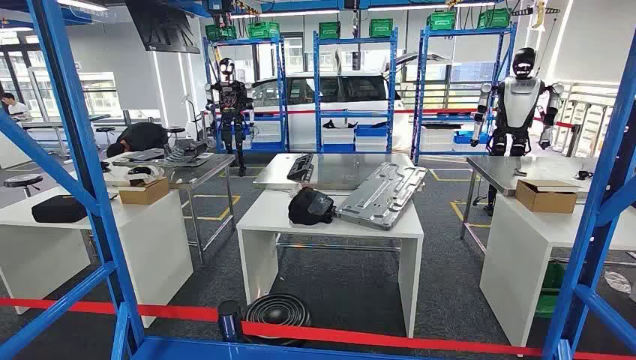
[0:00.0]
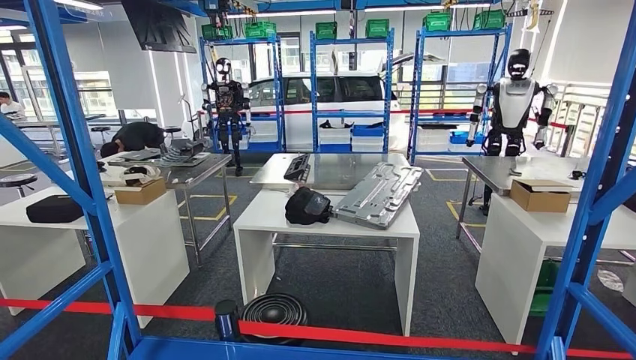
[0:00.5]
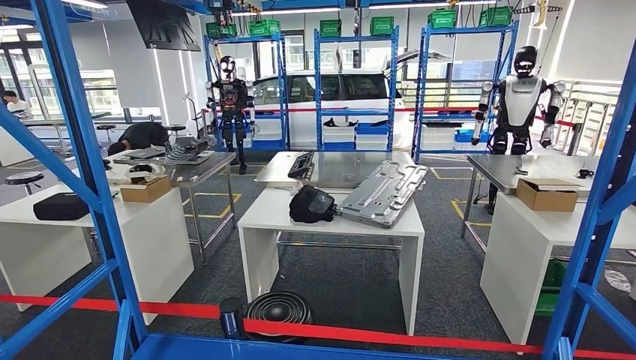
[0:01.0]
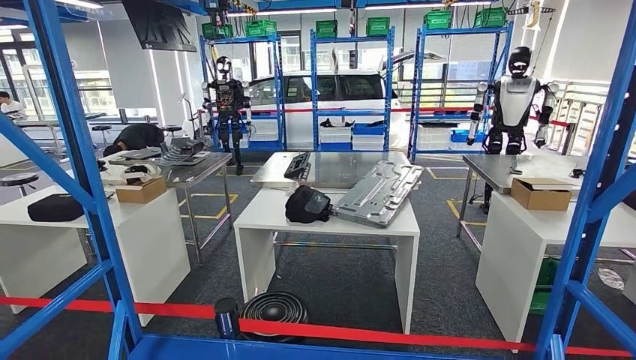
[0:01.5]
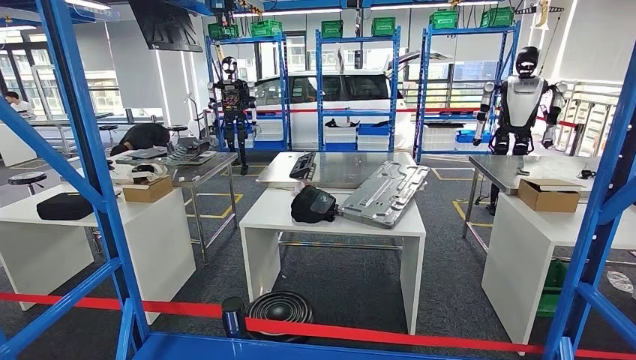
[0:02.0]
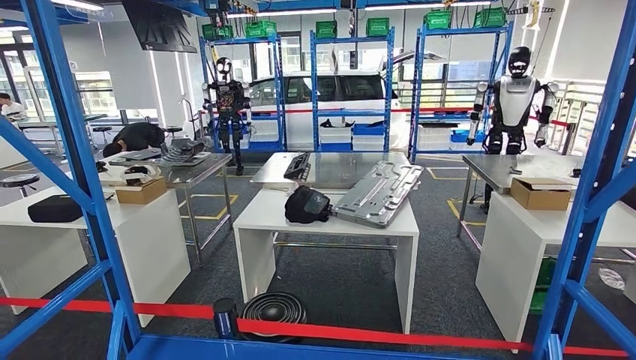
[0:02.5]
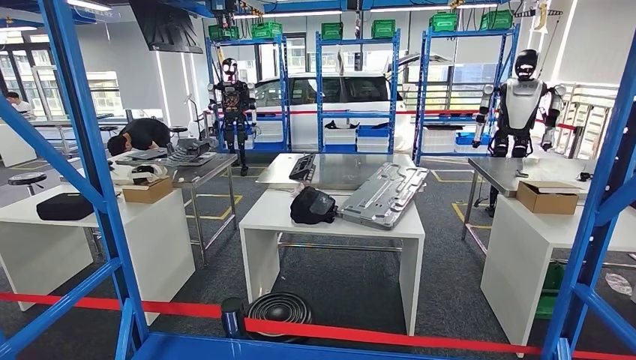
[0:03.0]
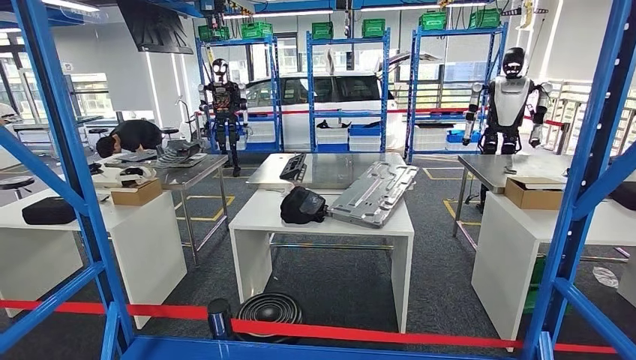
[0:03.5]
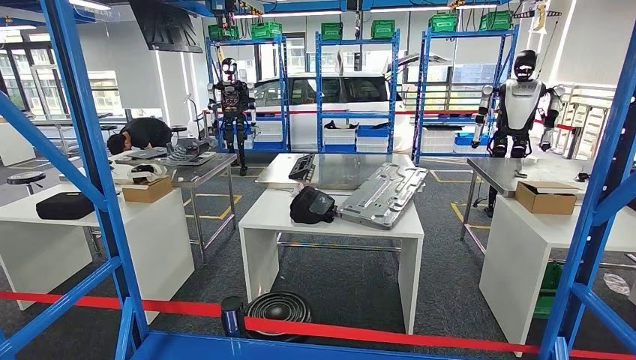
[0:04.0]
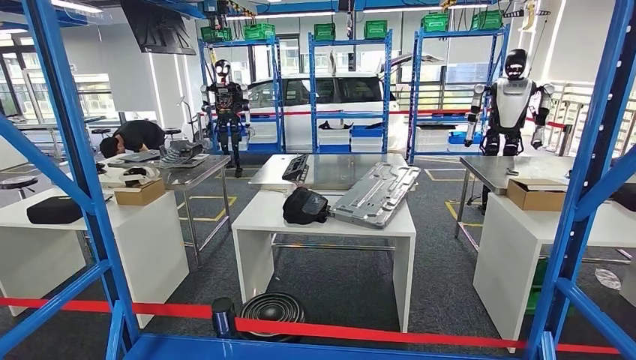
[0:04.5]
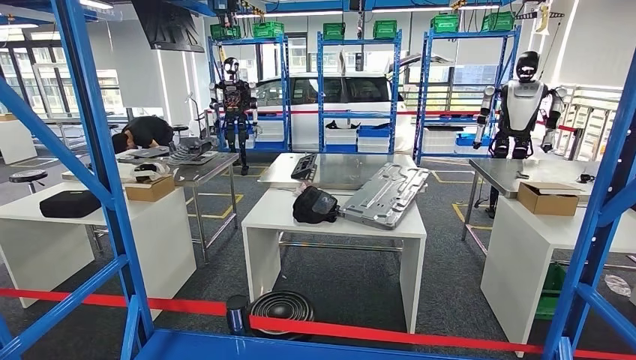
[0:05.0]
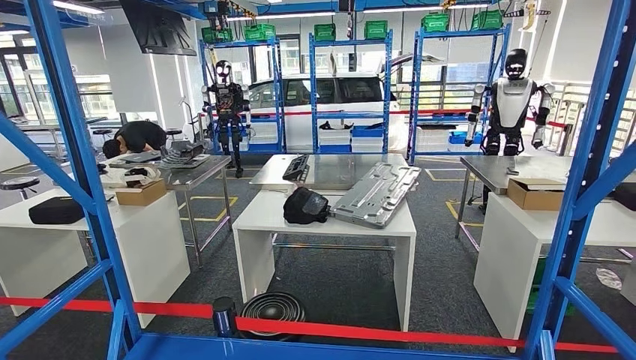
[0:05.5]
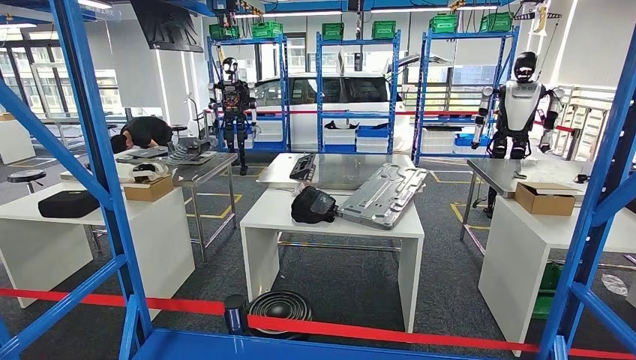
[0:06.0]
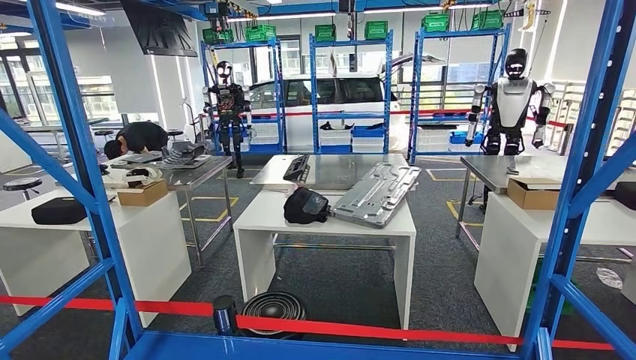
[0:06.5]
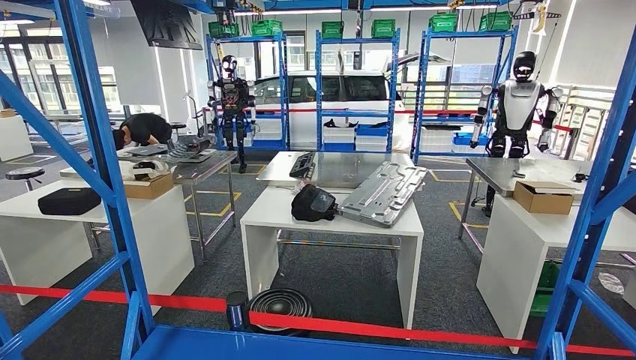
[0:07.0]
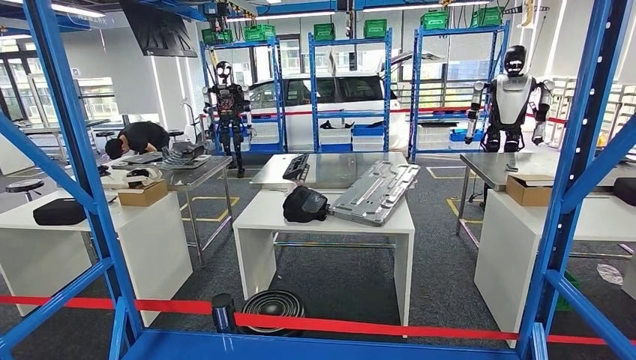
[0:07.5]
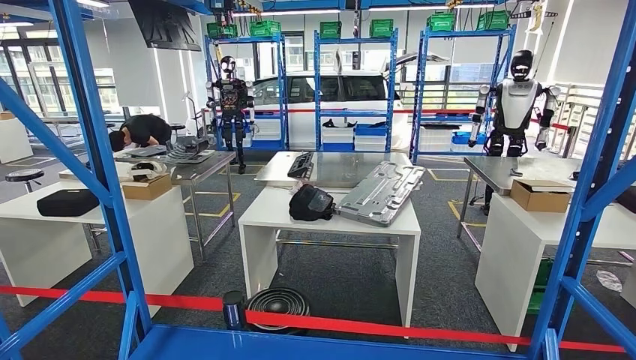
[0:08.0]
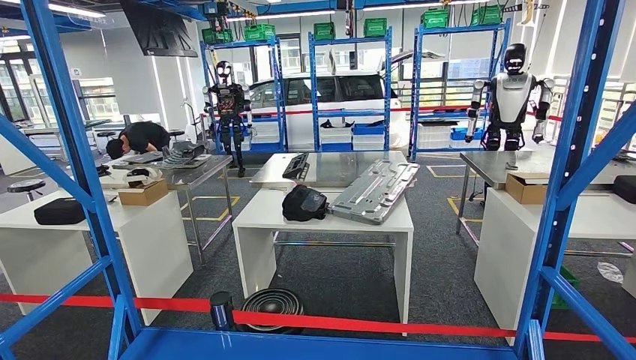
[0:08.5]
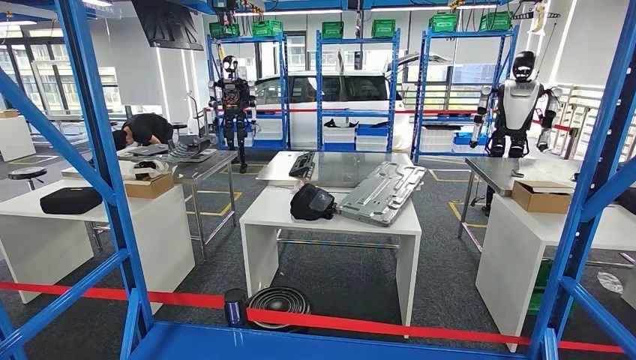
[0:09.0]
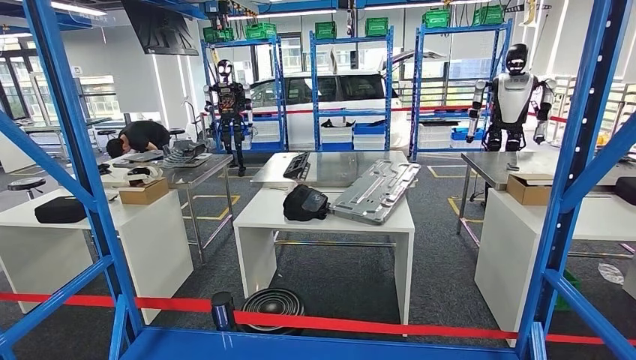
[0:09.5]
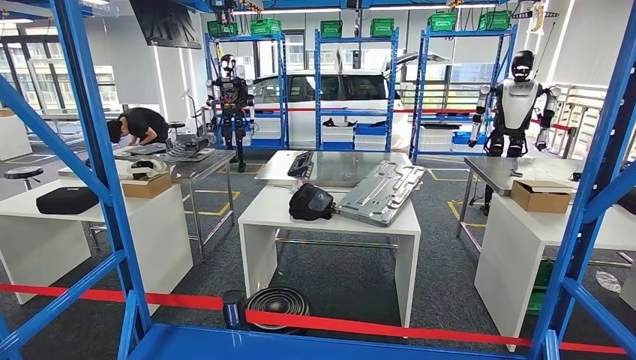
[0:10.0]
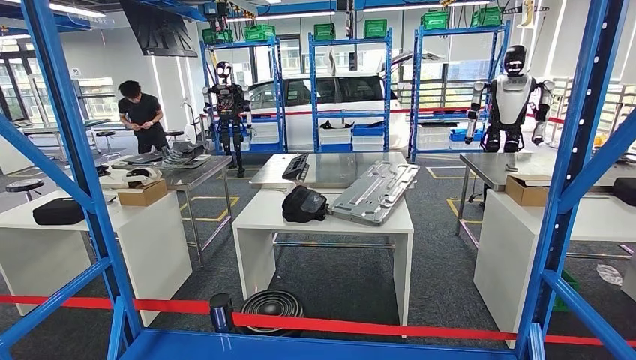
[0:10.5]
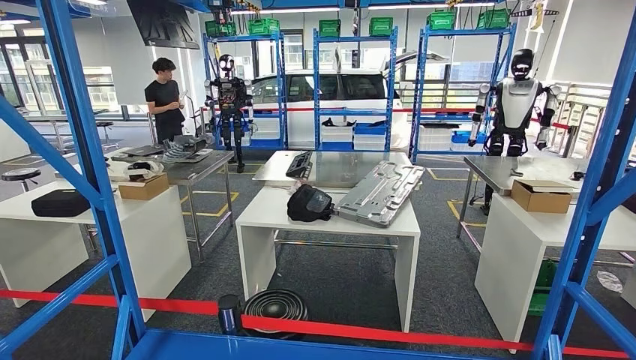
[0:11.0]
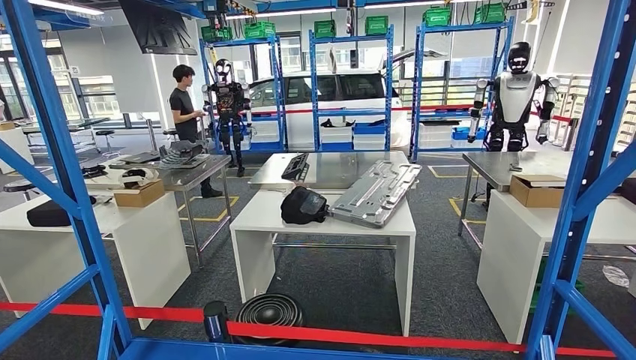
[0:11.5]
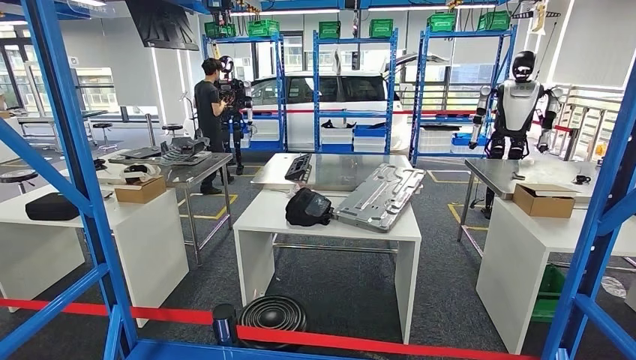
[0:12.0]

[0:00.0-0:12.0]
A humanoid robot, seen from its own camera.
0:02.0 to 0:04.0: The left hand moves to the left and backward, some 15 cm.
0:04.0 to 0:06.0: The left hand shifts approximately 10 cm to the right.
0:08.0 to 0:10.0: There are only small adjustments of the hands.

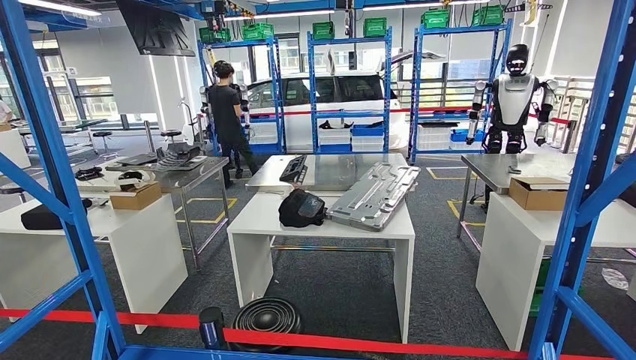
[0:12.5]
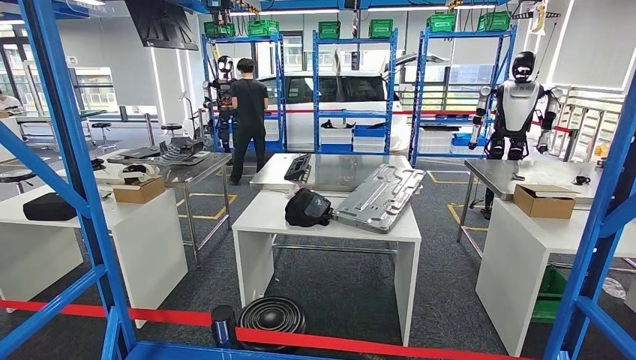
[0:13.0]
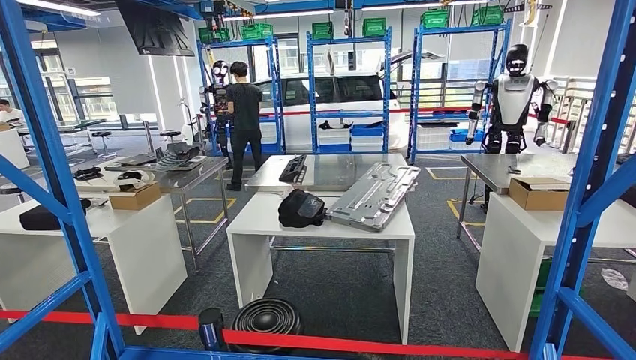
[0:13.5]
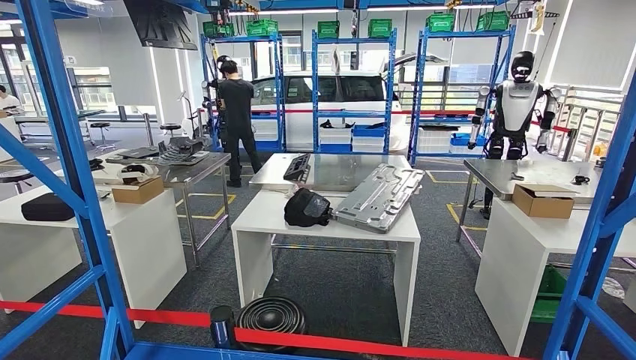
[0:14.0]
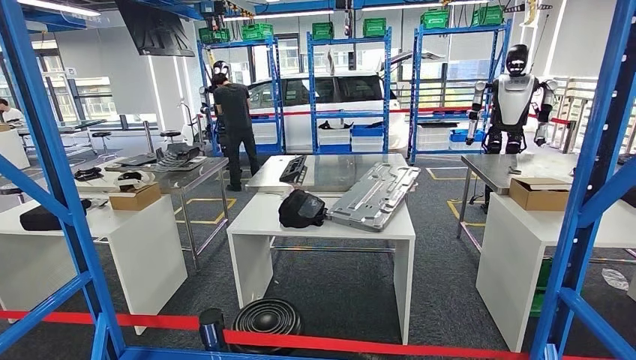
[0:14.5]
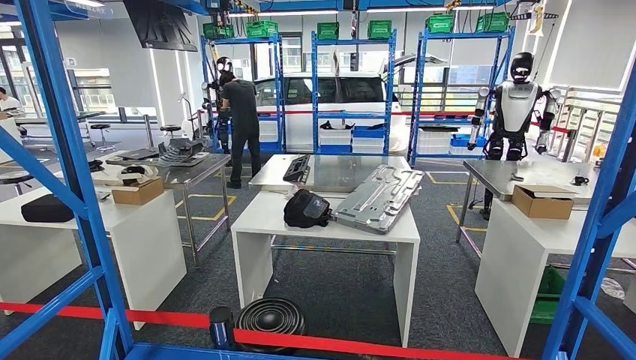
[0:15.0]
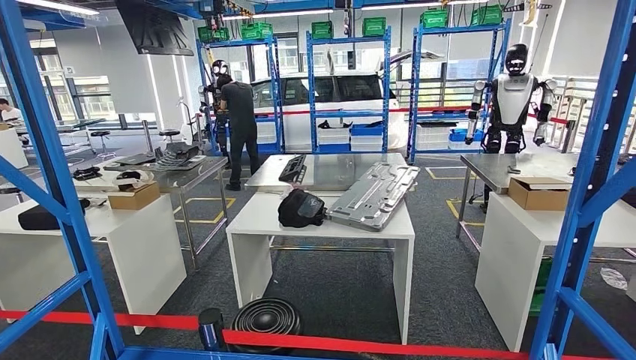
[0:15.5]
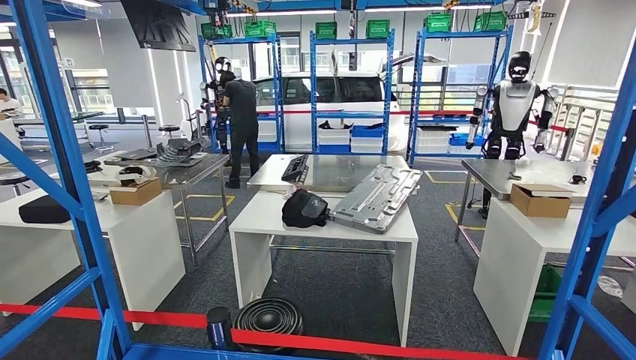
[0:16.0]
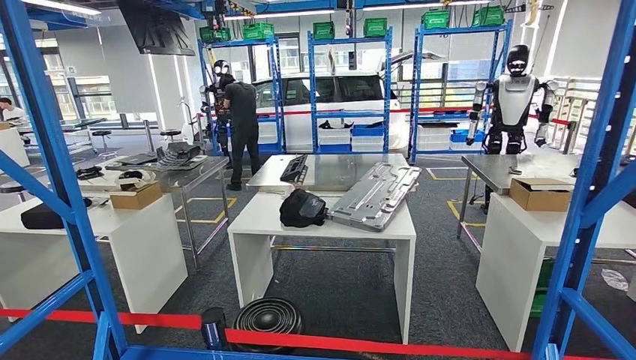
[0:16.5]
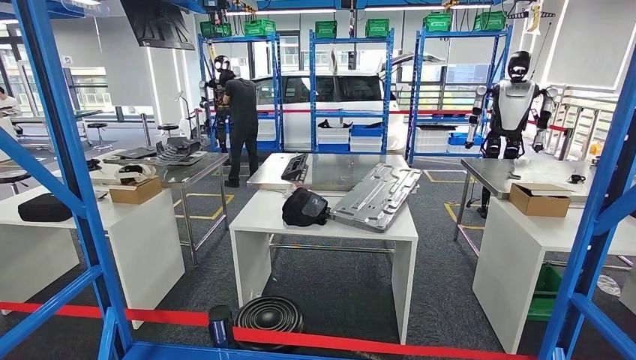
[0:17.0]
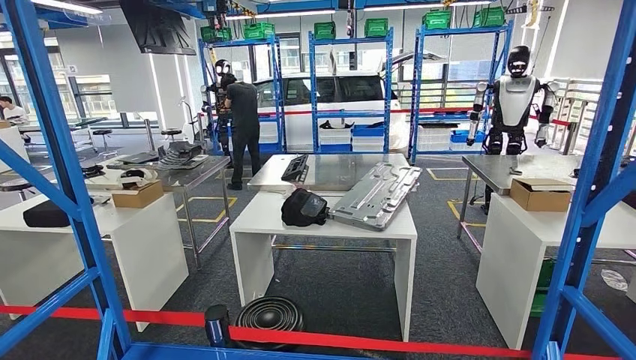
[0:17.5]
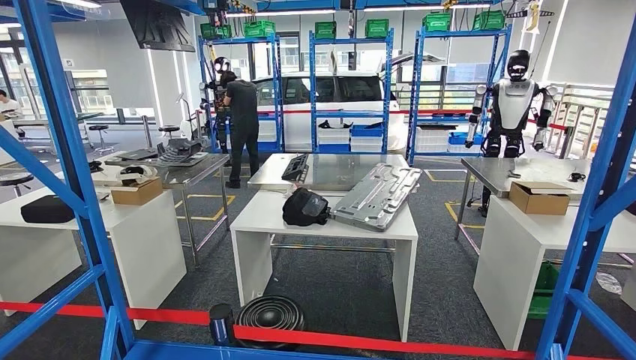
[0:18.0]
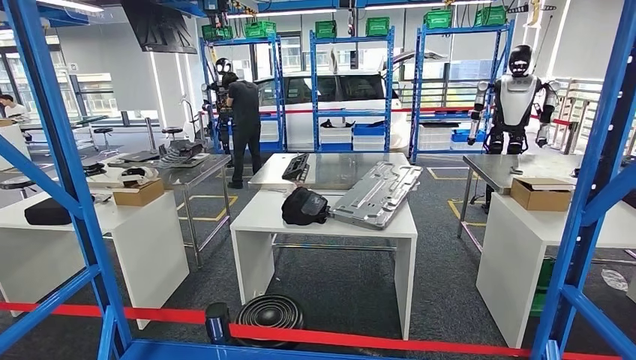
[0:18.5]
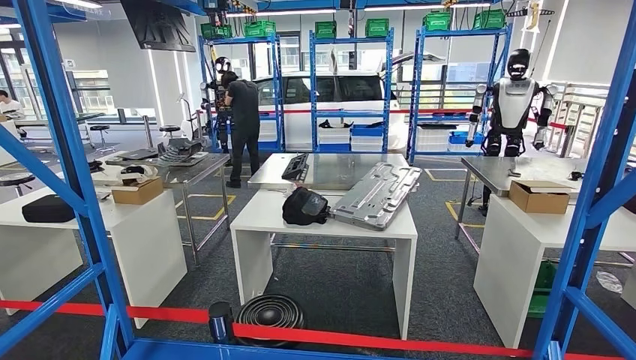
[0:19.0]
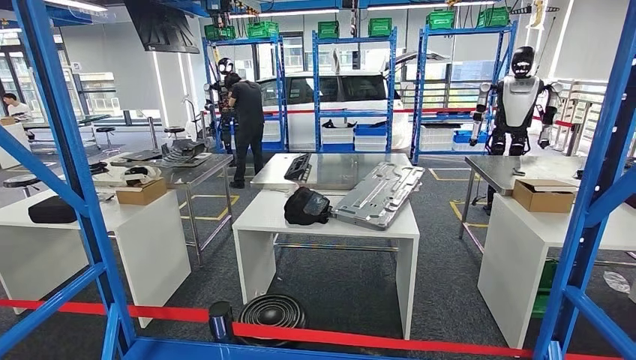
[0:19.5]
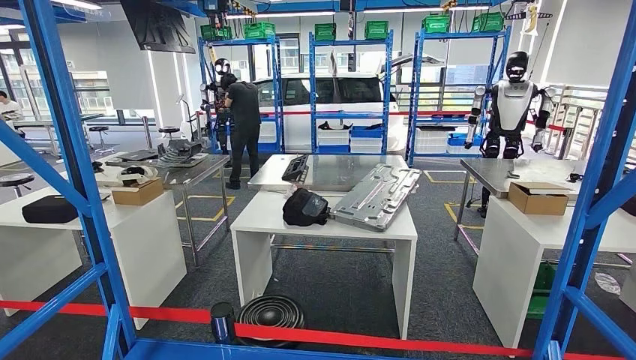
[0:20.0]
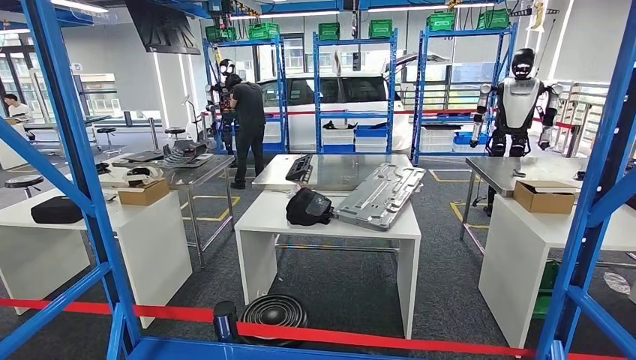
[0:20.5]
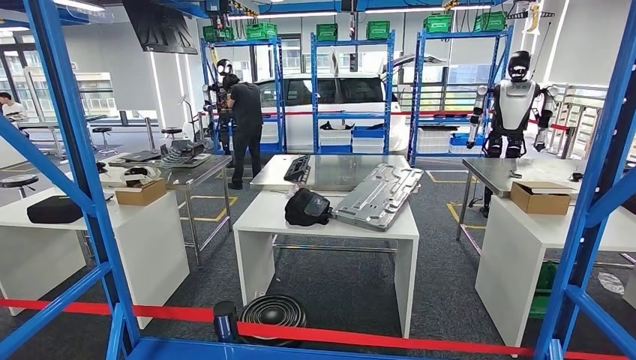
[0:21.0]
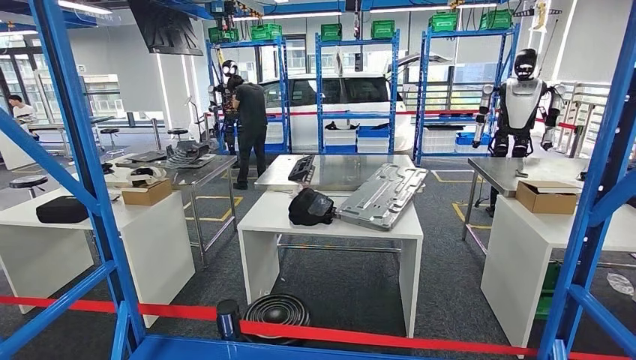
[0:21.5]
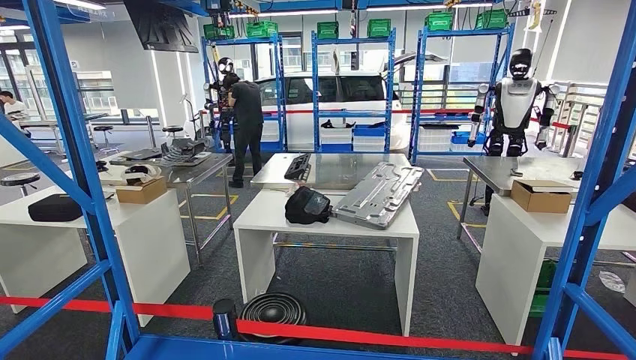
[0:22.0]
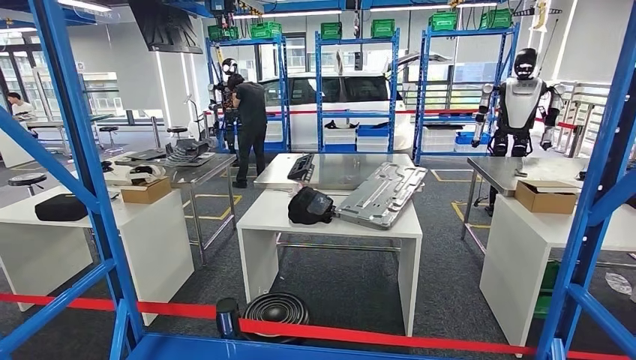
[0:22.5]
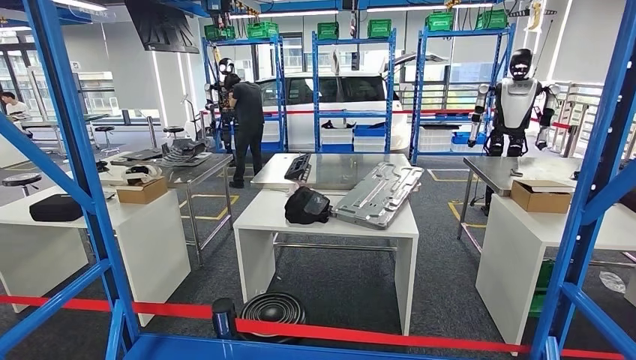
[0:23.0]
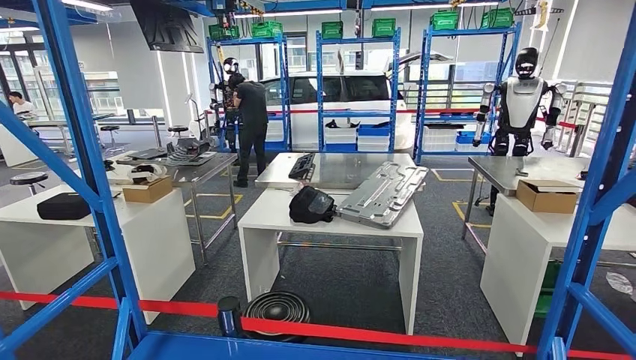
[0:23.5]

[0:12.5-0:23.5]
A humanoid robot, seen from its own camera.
0:12.5 to 0:14.5: The hands stay close to where they were, moving slightly.
0:16.0 to 0:18.0: The left hand goes about 5 cm to the right.
0:21.5 to 0:23.5: The left hand shifts approximately 15 cm upward, backward and to the right.
